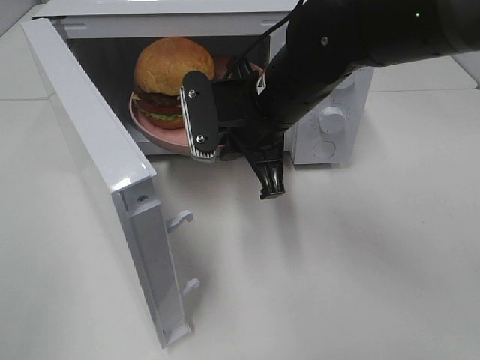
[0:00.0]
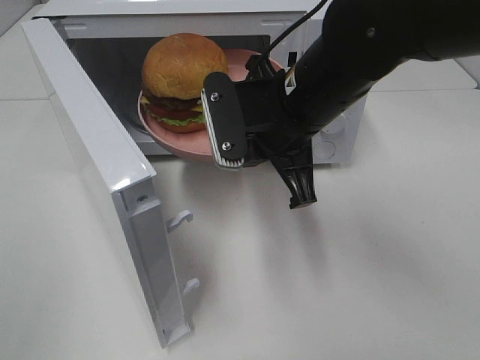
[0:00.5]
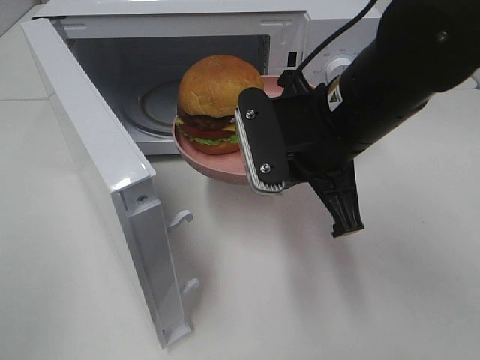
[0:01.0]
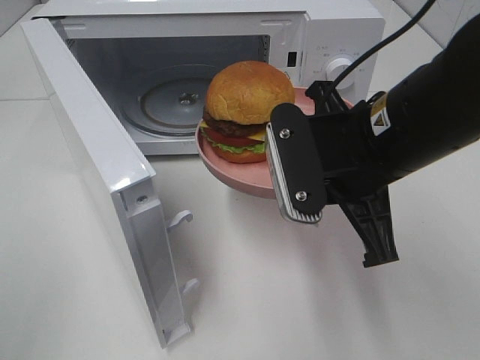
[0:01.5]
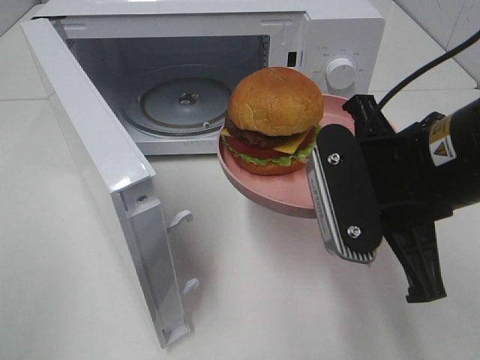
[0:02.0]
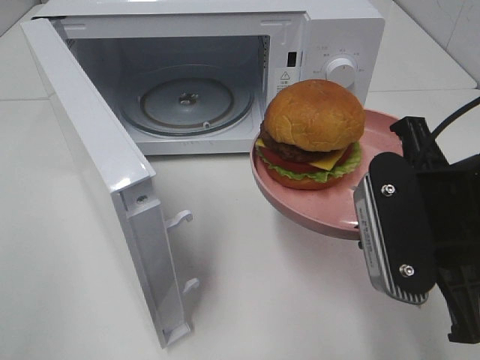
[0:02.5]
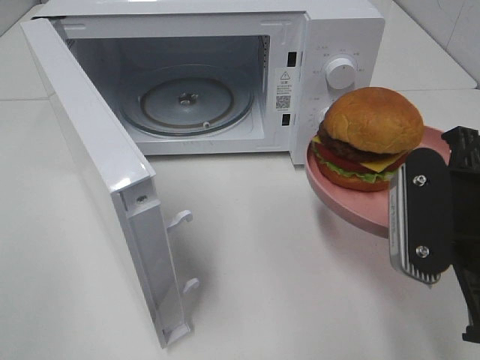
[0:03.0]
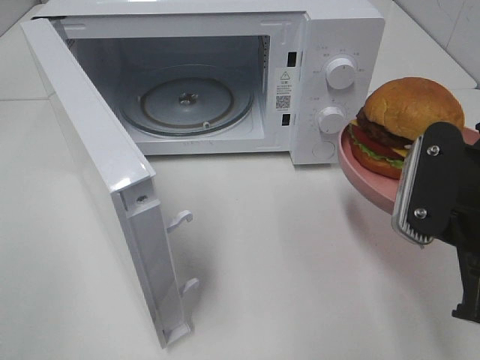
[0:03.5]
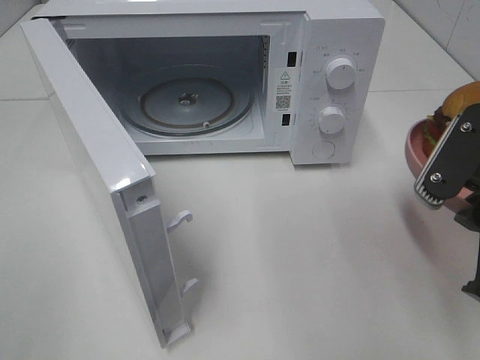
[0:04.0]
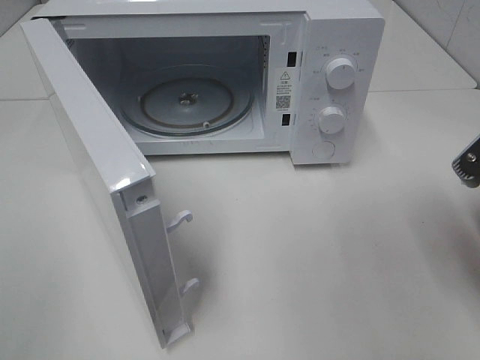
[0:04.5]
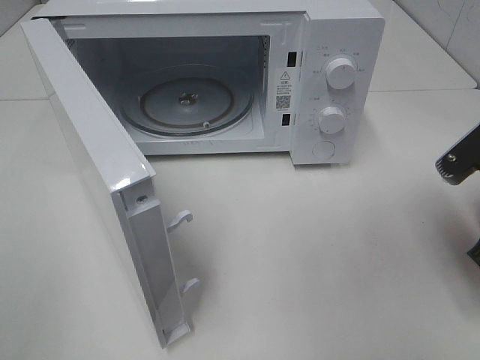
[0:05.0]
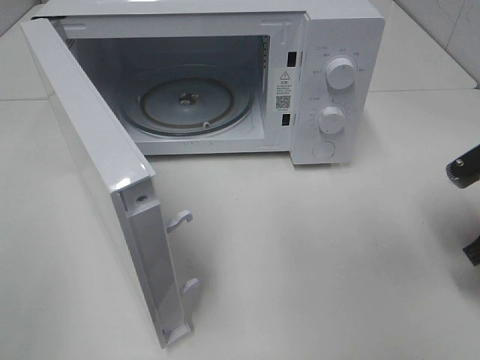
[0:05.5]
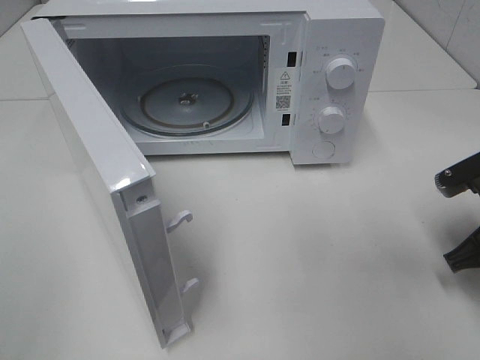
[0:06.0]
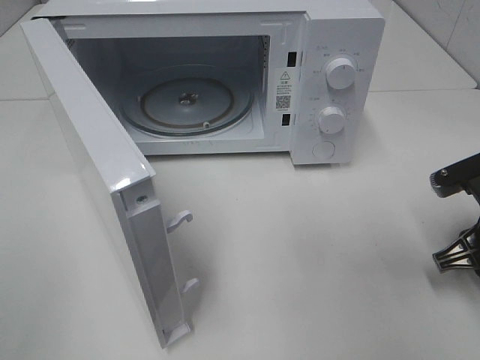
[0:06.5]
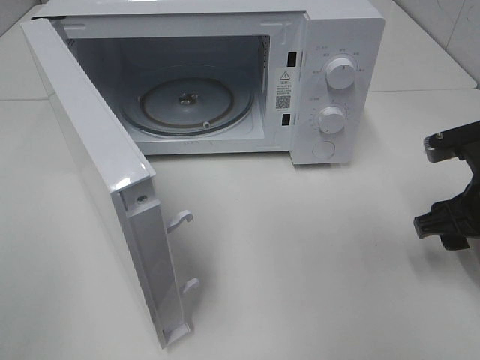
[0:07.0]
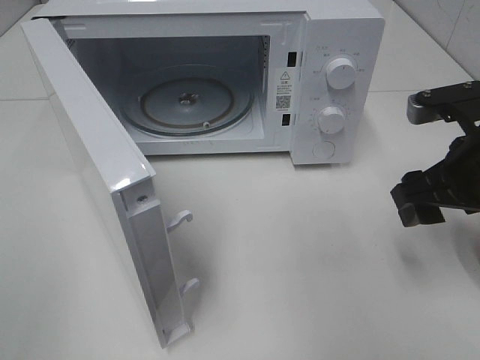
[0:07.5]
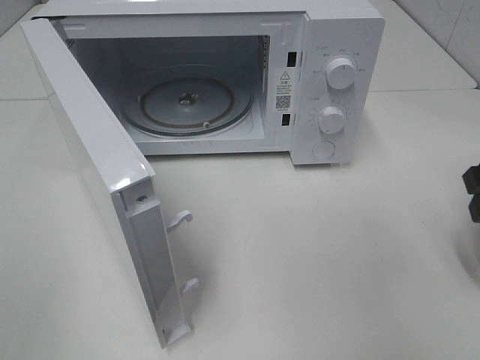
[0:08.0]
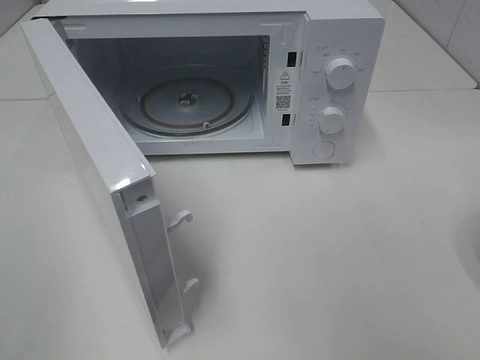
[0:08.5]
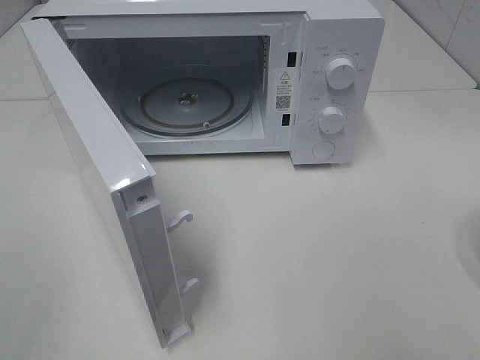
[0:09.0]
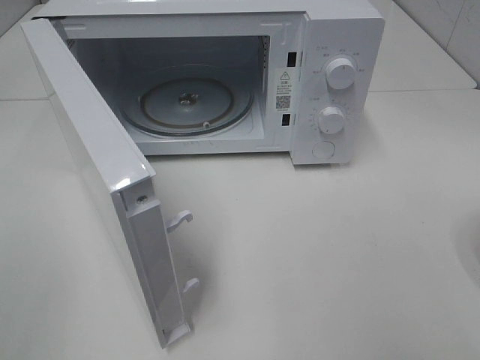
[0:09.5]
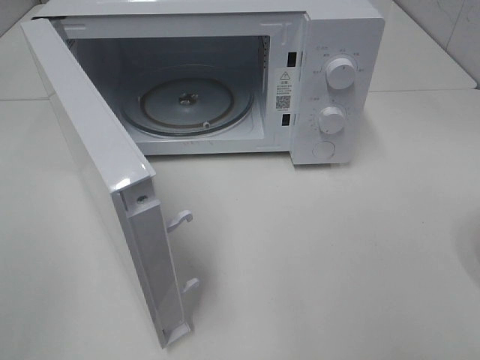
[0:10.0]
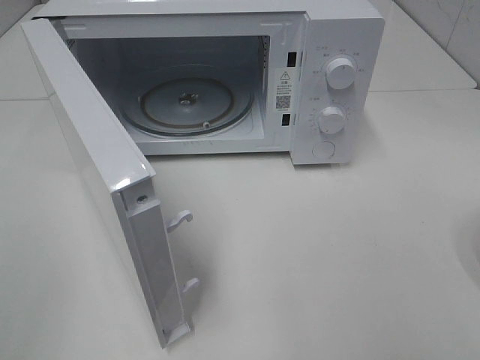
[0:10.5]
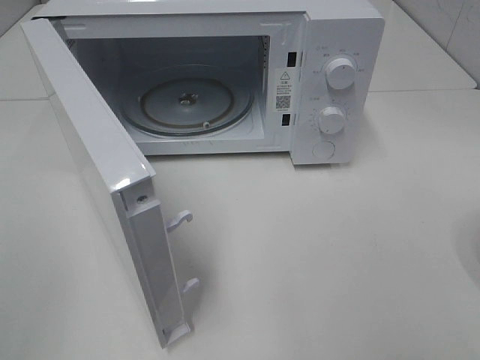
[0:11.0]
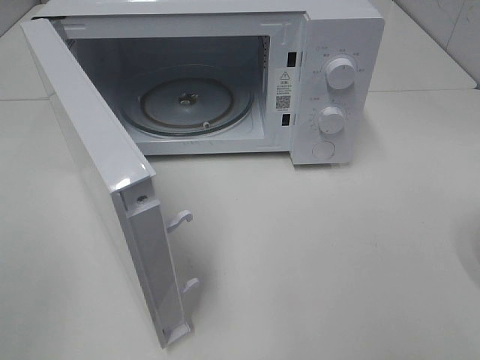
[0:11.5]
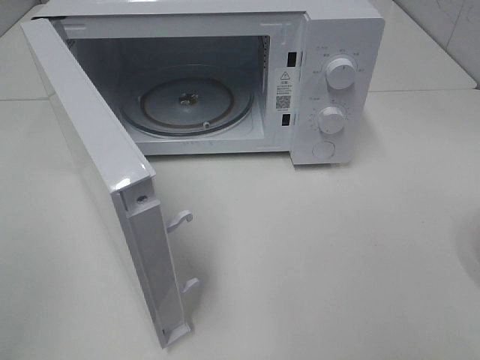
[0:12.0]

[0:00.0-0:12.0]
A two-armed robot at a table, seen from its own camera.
Task of the whole recording: Heat the burger.
Step, 0:00.0 to 0:06.0: Right hand: place the plate on the table.
0:00.0 to 0:02.0: The right gripper travels backward and to the right by some 15 cm.
0:02.0 to 0:04.0: The right gripper heads to the right, covering about 10 cm.
0:04.0 to 0:06.0: The right gripper heads downward, forward and to the right, covering approximately 15 cm.
0:06.0 to 0:08.0: The right gripper goes about 10 cm upward, and opens its fingers.
0:08.0 to 0:10.0: The right gripper heads backward, covering some 20 cm.

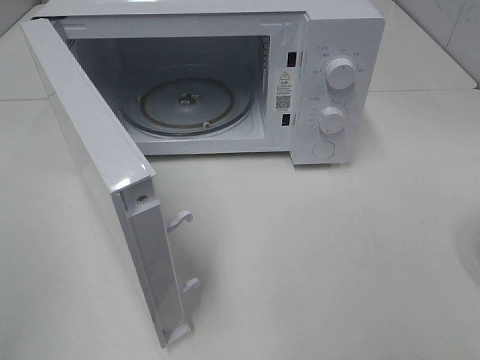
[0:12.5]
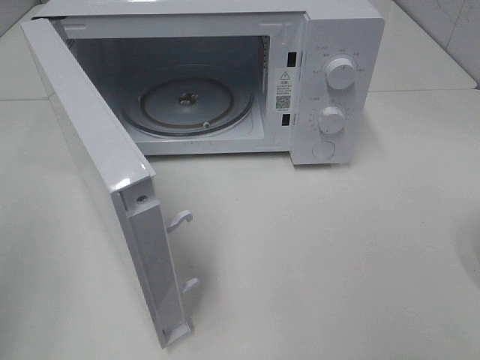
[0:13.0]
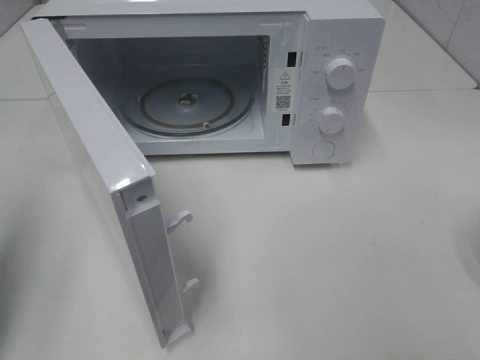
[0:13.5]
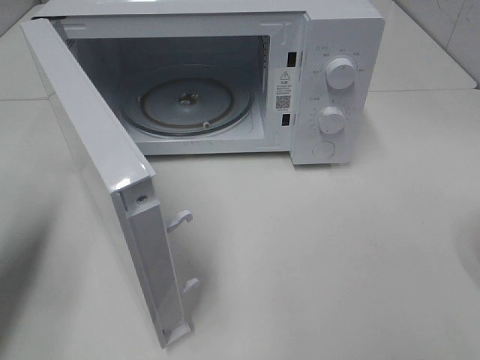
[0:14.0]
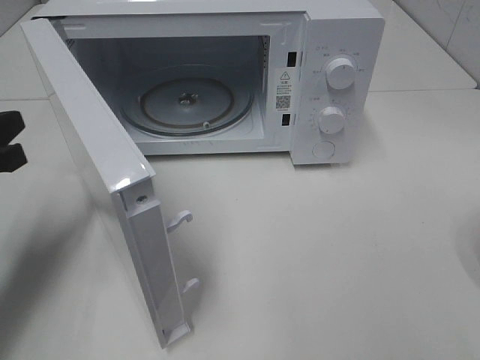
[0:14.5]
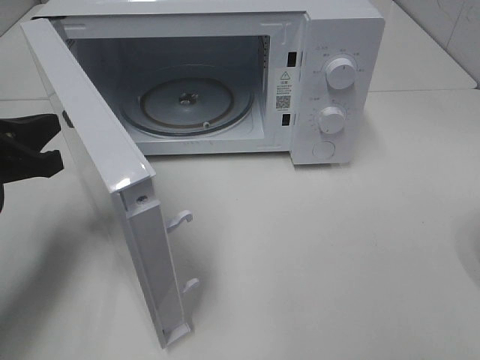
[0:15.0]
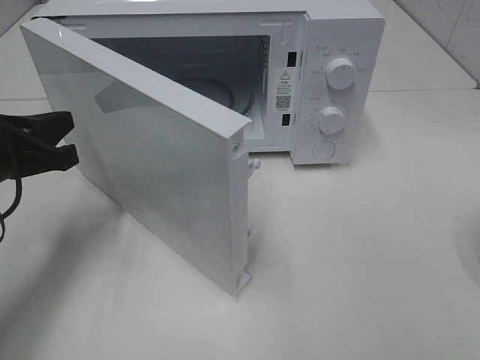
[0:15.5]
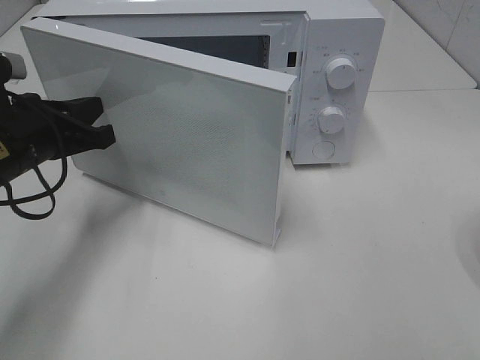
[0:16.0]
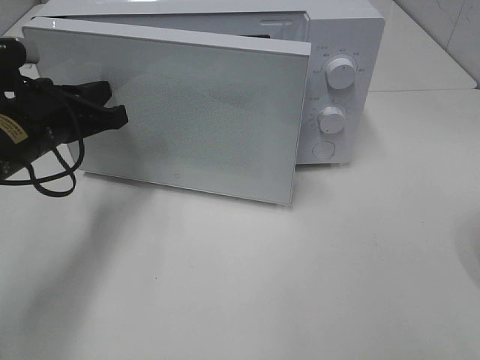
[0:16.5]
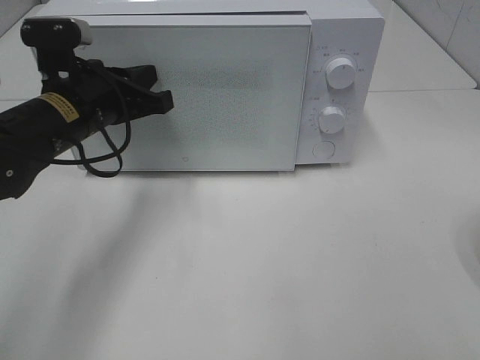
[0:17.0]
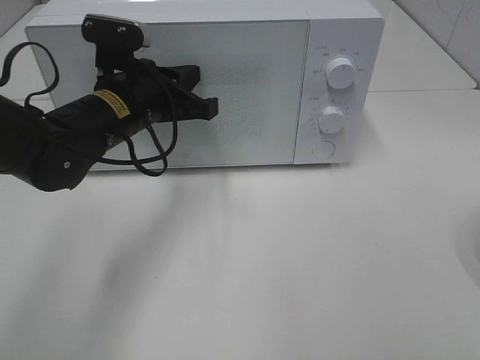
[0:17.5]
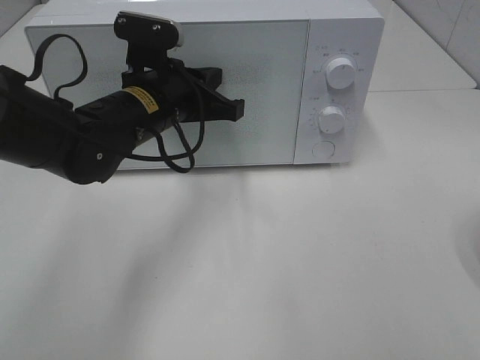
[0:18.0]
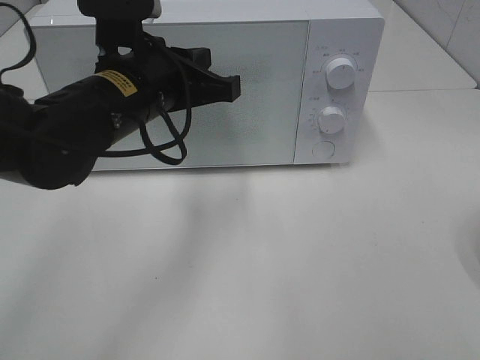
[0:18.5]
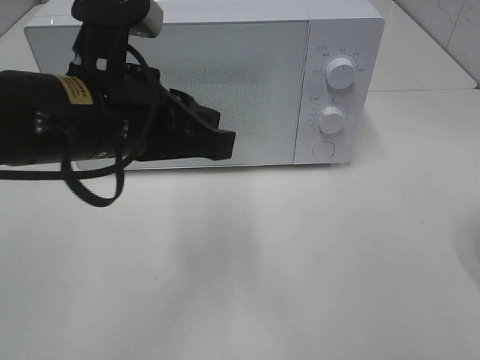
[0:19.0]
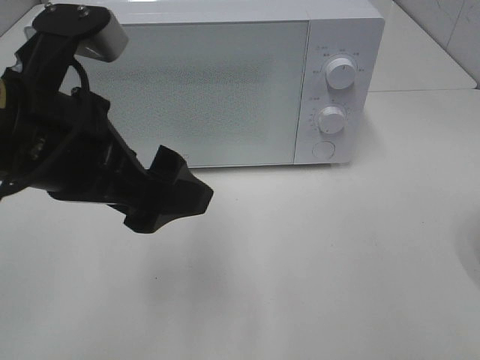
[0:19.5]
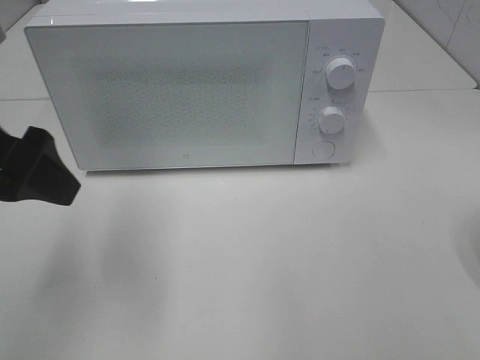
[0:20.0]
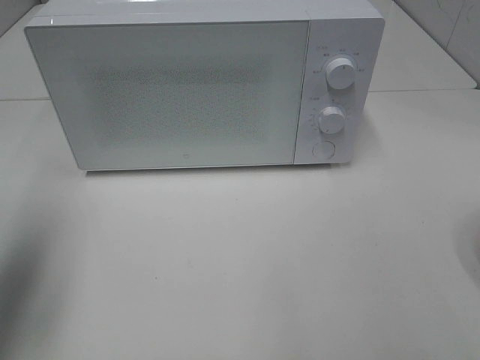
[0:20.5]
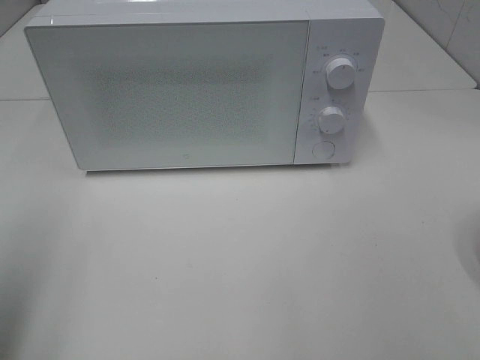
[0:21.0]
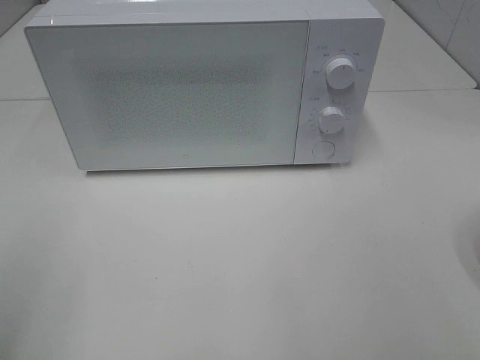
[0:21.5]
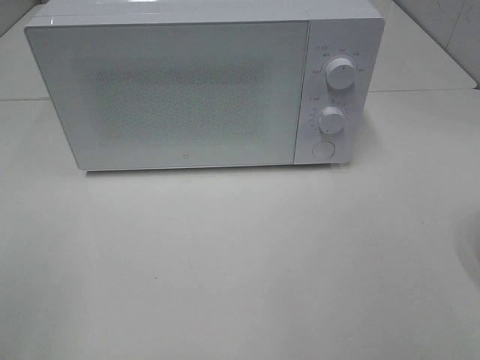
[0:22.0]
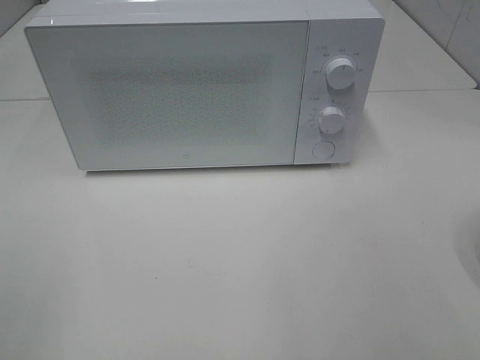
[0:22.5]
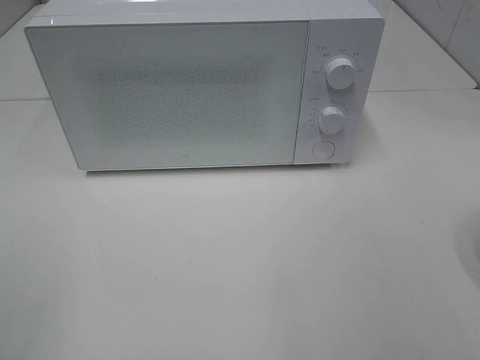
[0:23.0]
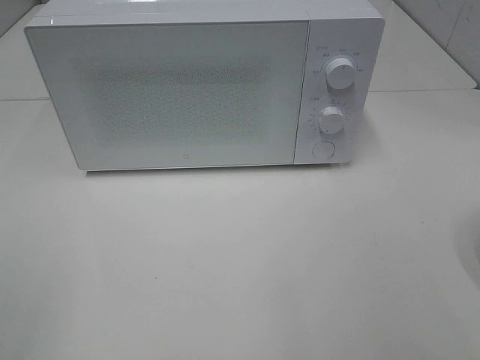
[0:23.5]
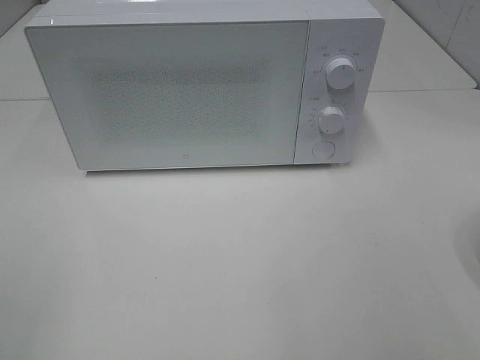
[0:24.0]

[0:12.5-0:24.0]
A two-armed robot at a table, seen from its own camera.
Task of the whole recording: Heat the burger.
Step, 0:12.5 to 0:17.5: Left hand: close the microwave door.
0:12.5 to 0:14.5: The left gripper heads forward and downward, covering about 25 cm, and closes up.
0:14.5 to 0:16.5: The left gripper goes approximately 10 cm to the right and forward.
0:16.5 to 0:18.5: The left gripper goes some 10 cm to the right.
0:18.5 to 0:20.0: The left gripper heads to the left, backward and upward, covering roughly 15 cm, and opens.
0:20.0 to 0:22.0: The left gripper shifts roughly 20 cm backward and to the left.

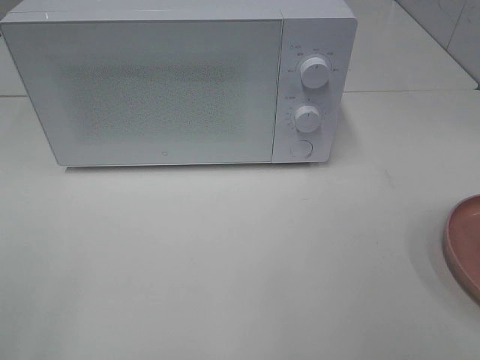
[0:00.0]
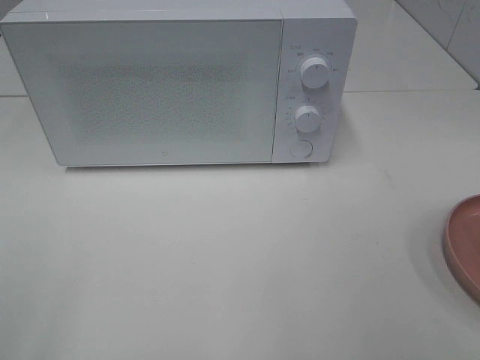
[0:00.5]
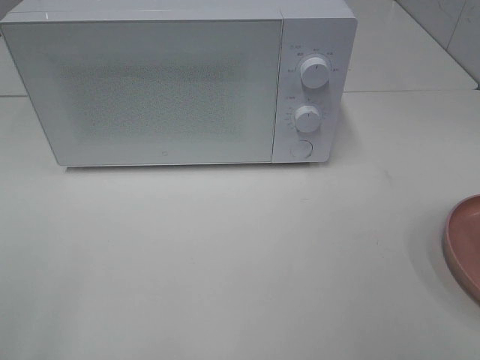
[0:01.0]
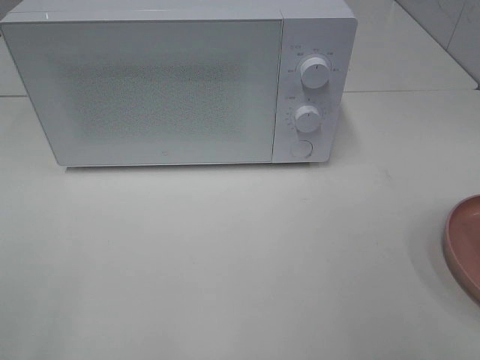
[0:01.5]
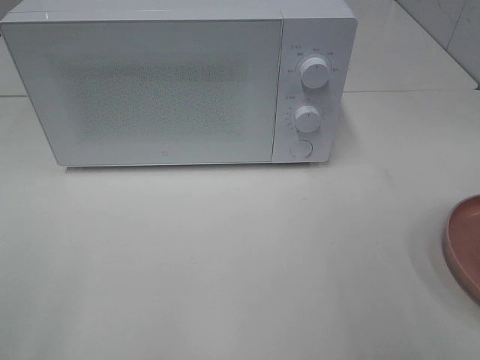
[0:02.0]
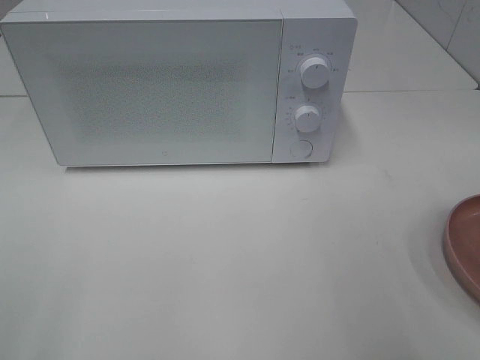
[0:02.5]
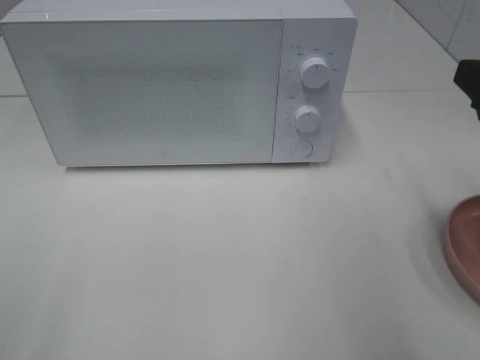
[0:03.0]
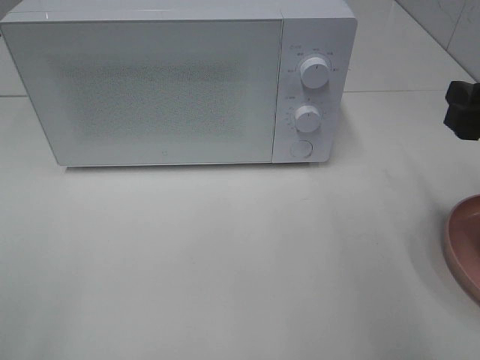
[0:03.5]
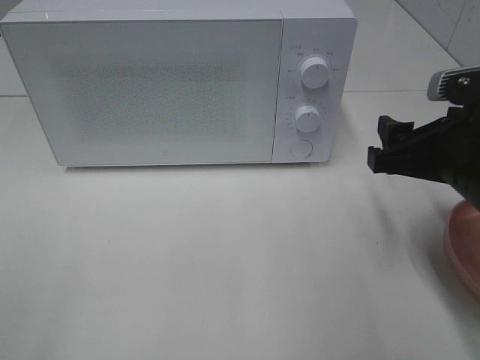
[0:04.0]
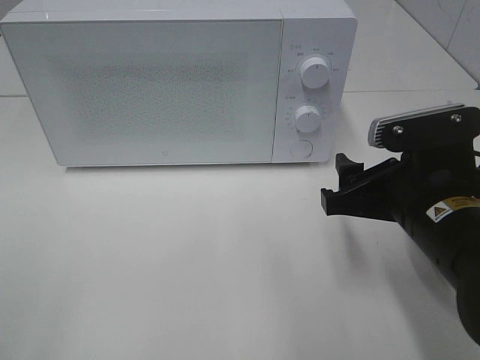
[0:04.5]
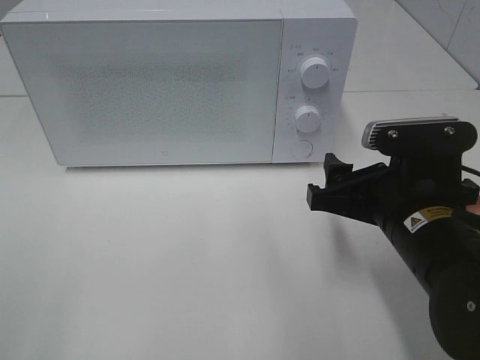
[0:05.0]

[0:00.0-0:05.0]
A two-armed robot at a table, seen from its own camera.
Task of the whole recording: Heat the burger.
0:02.5 to 0:05.0: The right gripper heads downward, to the left and forward, covering some 20 cm.
